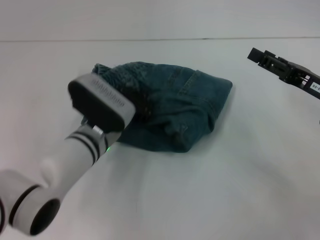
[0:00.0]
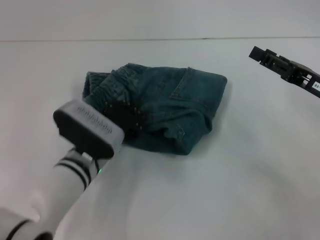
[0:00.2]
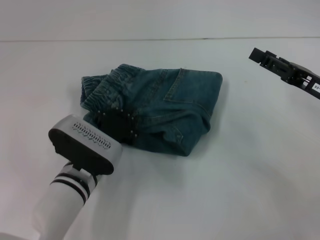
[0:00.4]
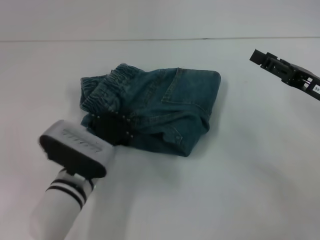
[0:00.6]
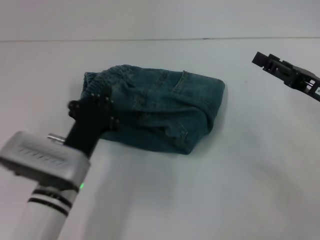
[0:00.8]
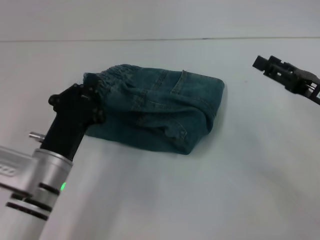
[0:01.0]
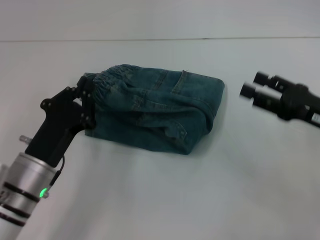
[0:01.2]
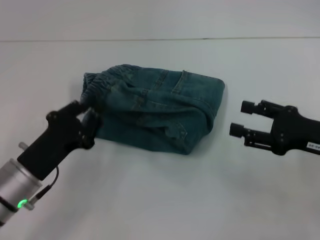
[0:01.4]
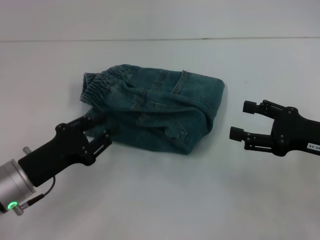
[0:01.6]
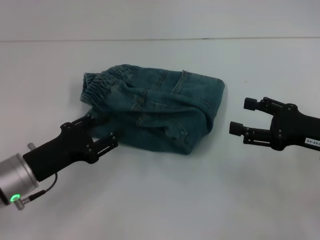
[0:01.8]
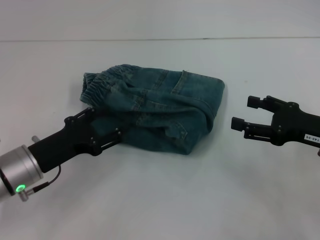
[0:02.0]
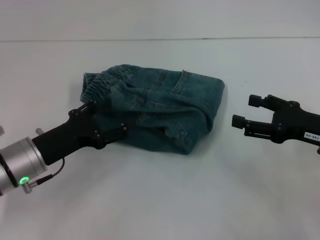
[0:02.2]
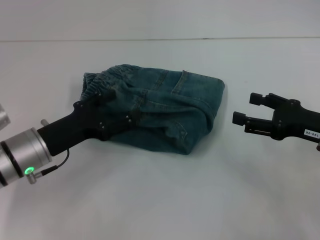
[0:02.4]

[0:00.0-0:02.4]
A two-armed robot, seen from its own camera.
0:00.0 to 0:01.2: The left gripper goes approximately 15 cm backward and to the left.
0:01.2 to 0:02.4: The left gripper ends up approximately 5 cm from where it was, and opens.
